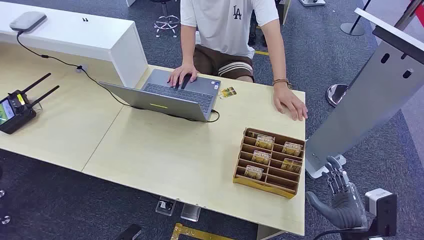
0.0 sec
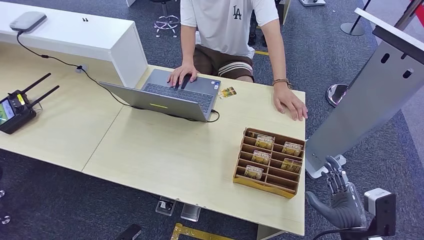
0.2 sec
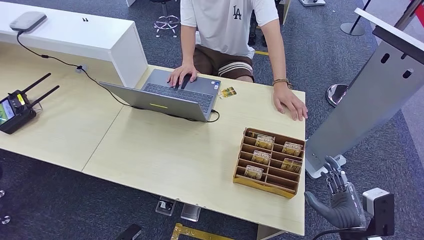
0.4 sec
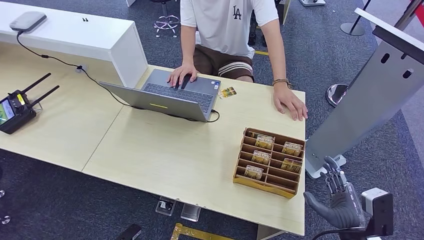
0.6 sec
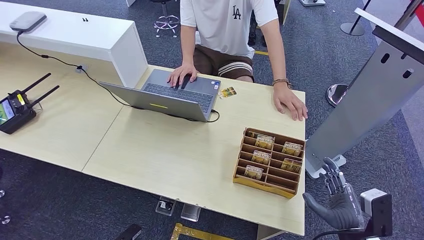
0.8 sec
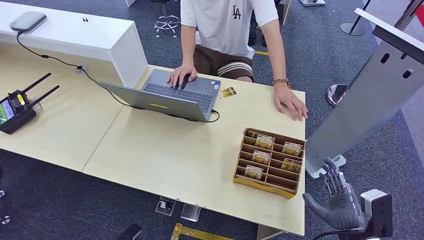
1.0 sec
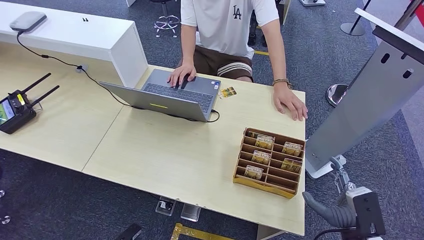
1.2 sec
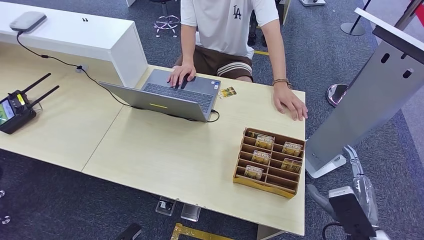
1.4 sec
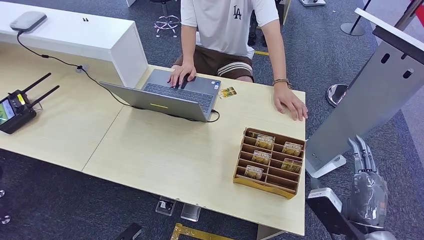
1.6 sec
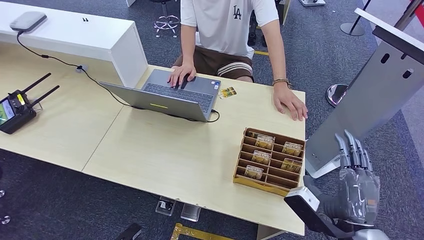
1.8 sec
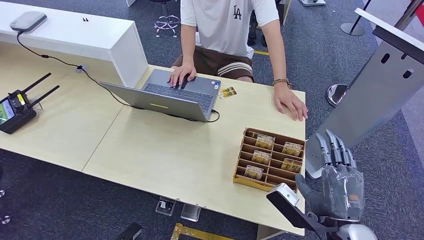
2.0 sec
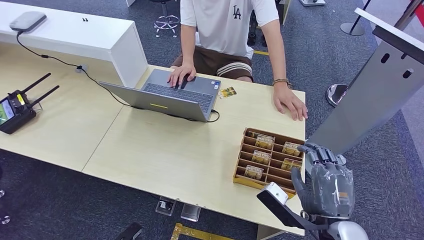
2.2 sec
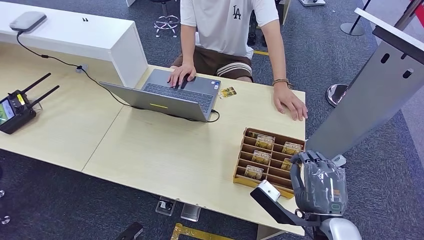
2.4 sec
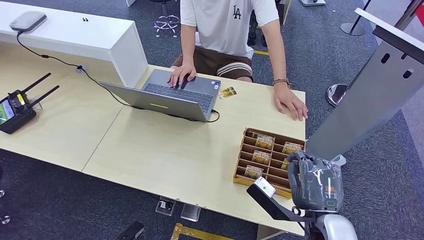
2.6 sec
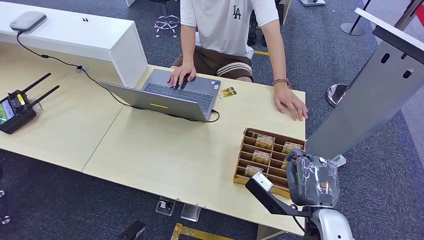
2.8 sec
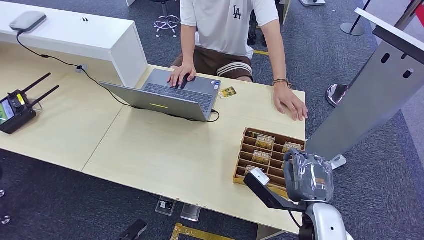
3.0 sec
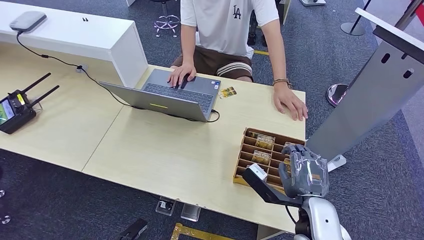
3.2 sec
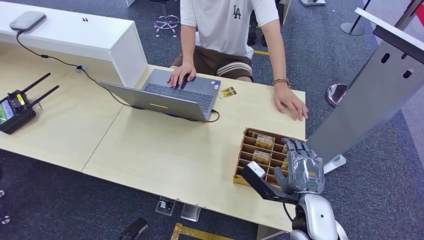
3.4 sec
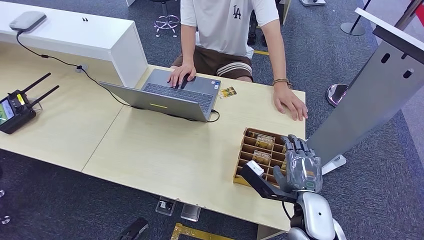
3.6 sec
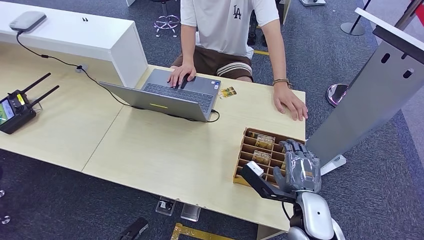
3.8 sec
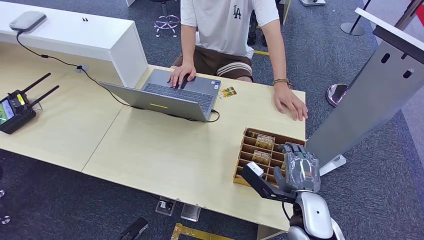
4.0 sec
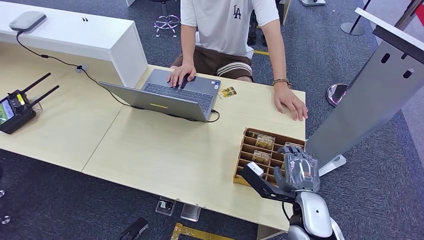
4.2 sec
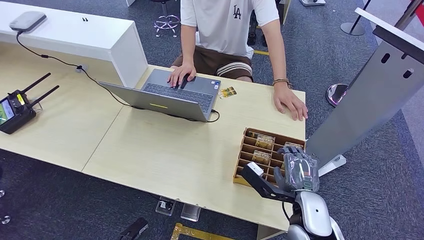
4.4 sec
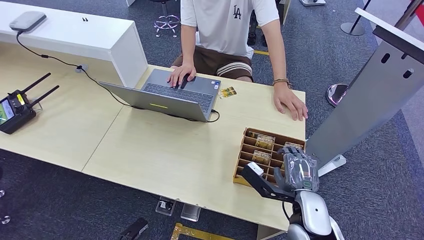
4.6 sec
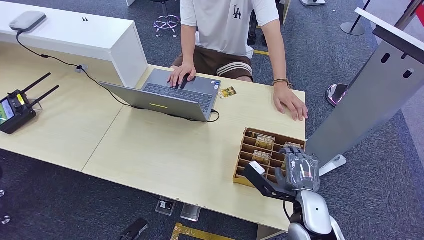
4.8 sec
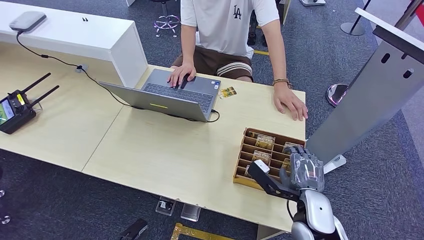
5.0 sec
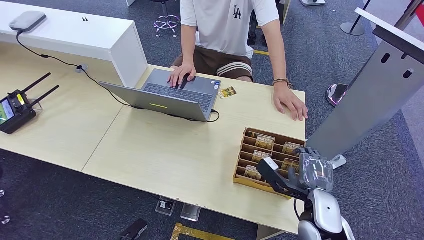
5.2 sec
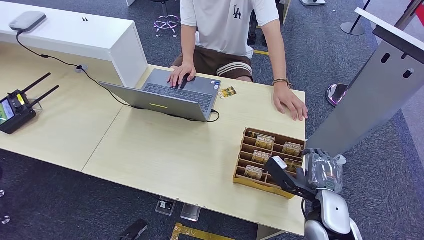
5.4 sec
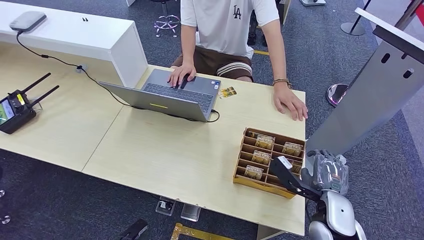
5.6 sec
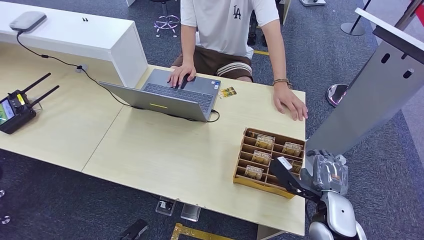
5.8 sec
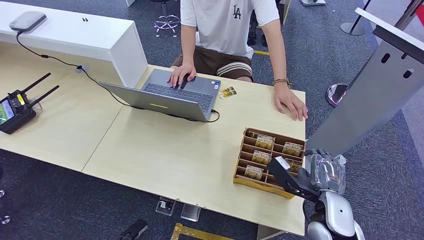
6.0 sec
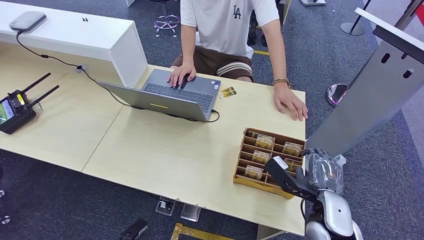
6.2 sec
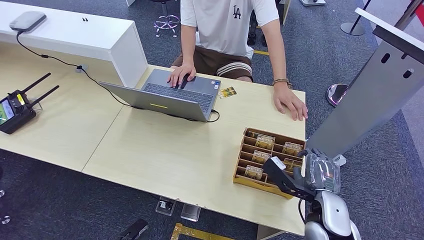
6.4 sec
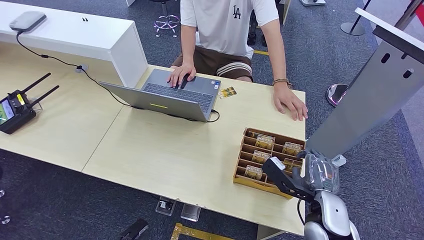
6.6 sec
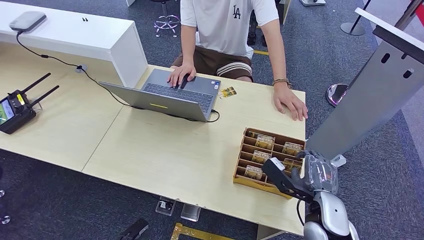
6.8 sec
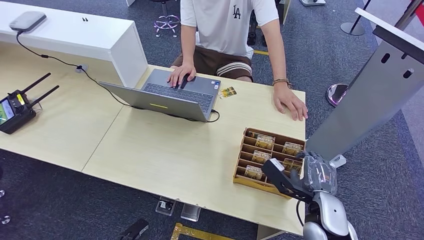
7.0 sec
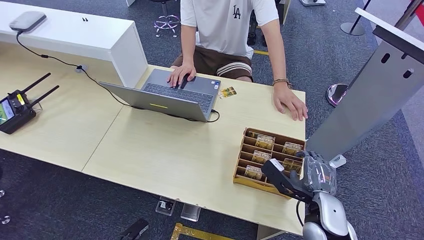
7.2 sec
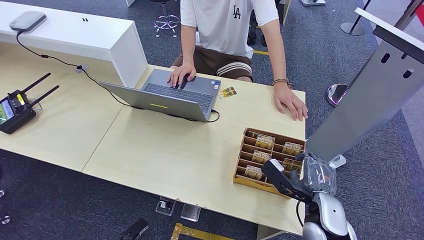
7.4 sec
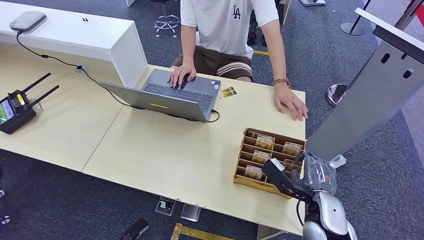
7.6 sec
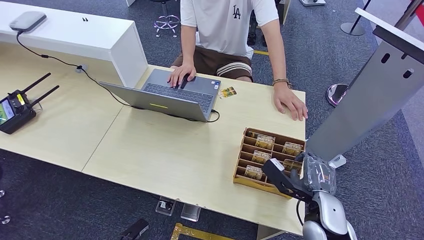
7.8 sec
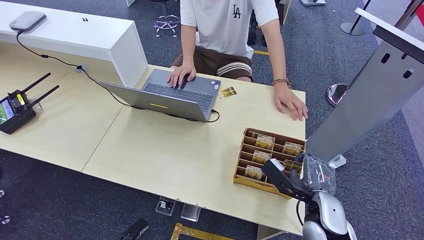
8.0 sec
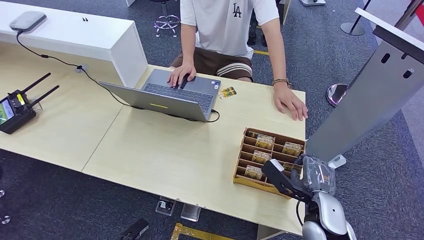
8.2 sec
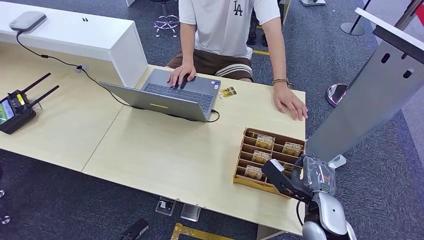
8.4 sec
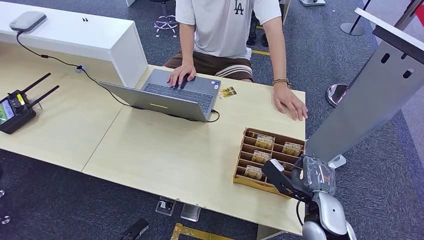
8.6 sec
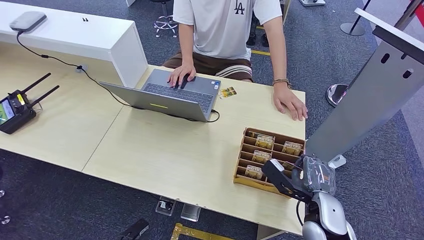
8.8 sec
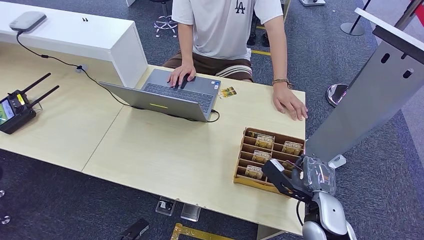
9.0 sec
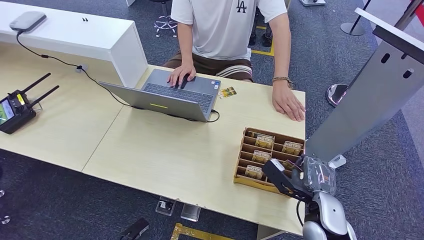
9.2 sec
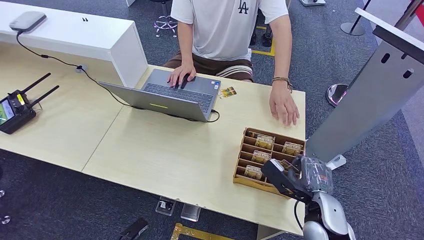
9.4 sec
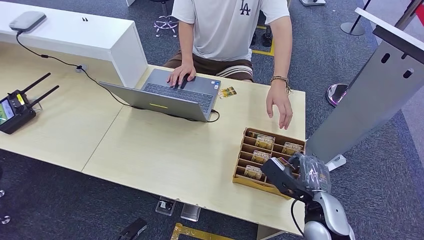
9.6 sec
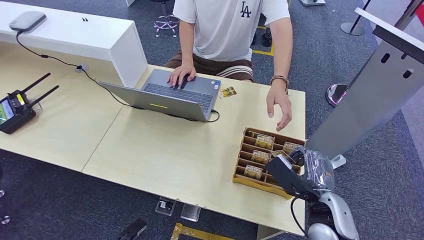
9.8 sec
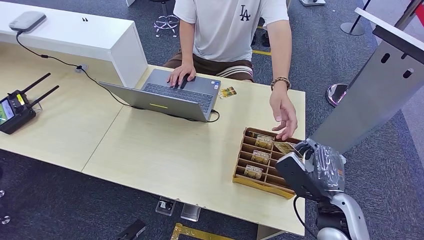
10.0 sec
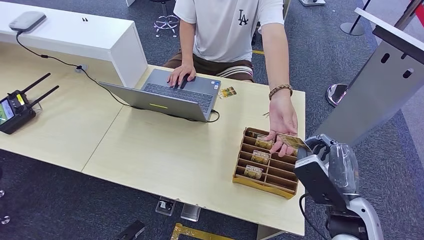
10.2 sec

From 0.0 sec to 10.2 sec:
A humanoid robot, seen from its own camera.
Step, from 0.0 sec to 9.0 sec: Pick up the key card from the card box.
From 1.4 sec to 3.0 sec: The right hand heads to the left, covering approximately 10 cm.
From 3.0 sec to 4.4 sec: The right hand changes place by some 5 cm.
From 4.4 sec to 5.8 sec: The right hand moves to the right, some 5 cm.
From 5.8 sec to 7.2 sec: The hands stay close to where they were, moving slightly.
From 7.2 sec to 8.8 sec: The two hands keep their place.
From 8.8 sec to 10.2 sec: The right hand heads upward, covering roughly 10 cm.

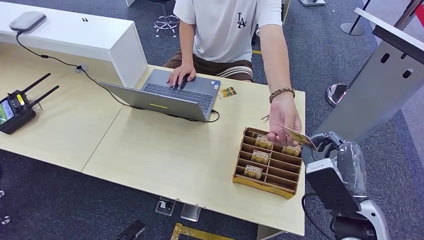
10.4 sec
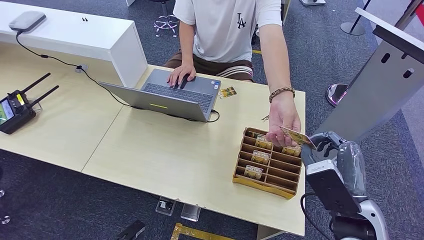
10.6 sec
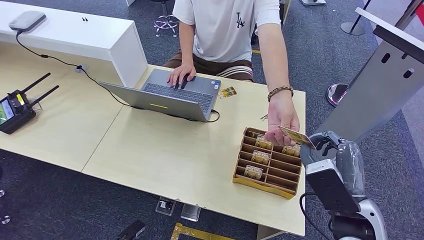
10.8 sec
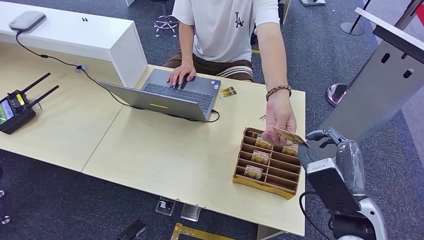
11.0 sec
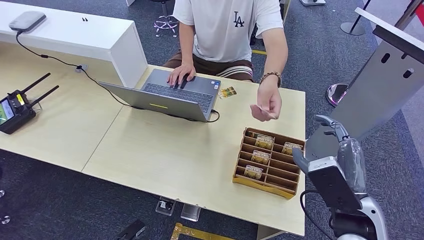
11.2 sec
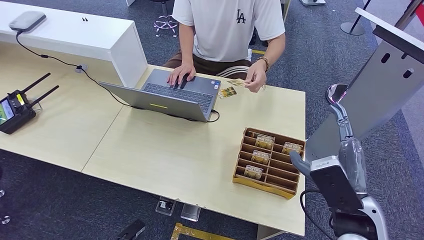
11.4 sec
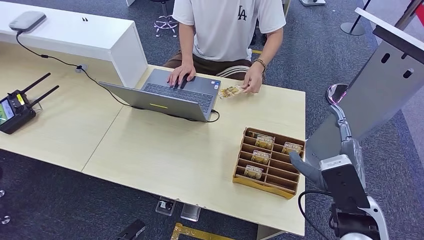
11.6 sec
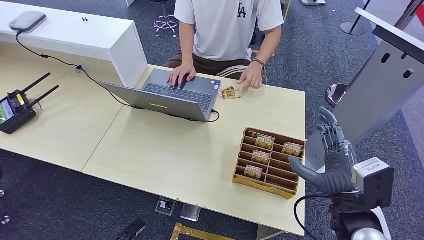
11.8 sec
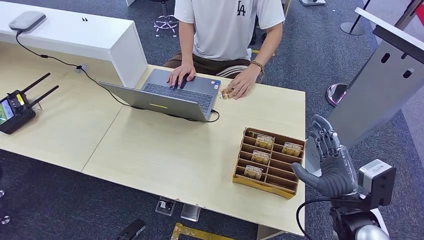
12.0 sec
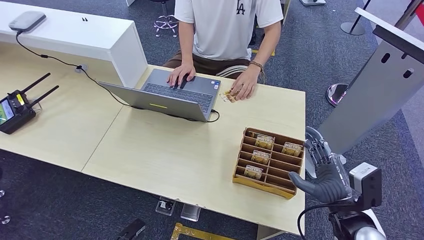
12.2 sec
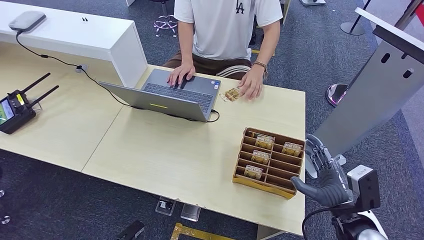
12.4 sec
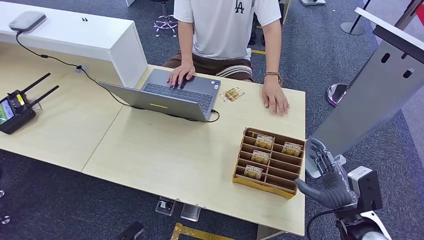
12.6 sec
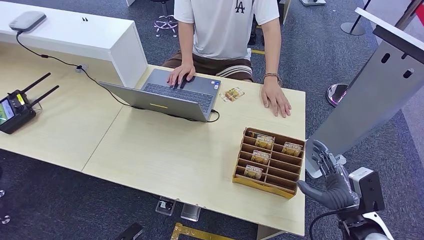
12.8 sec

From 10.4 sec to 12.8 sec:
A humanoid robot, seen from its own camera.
Step, from 10.4 sec to 12.8 sec: Hand the key card to the target.
From 10.4 sec to 11.6 sec: The hands stay close to where they were, moving slightly.
From 11.6 sec to 12.8 sec: The right hand is displaced downward and to the right by some 10 cm.

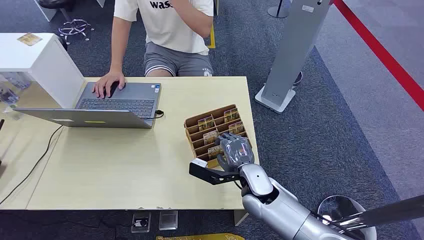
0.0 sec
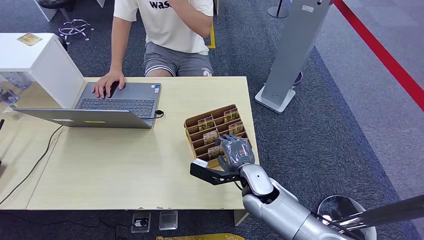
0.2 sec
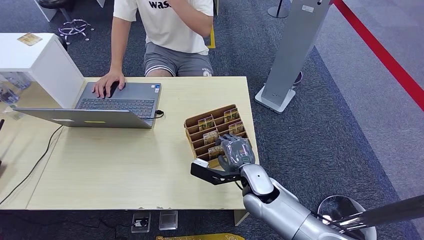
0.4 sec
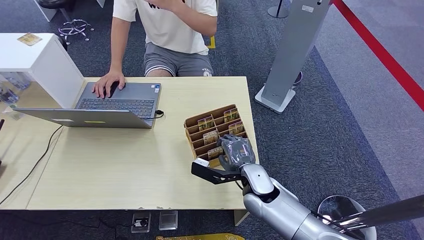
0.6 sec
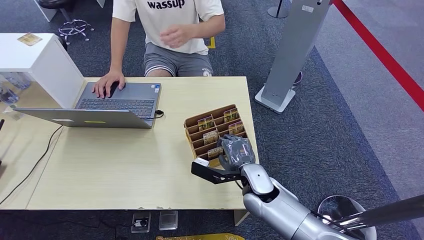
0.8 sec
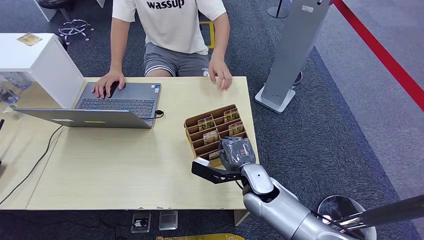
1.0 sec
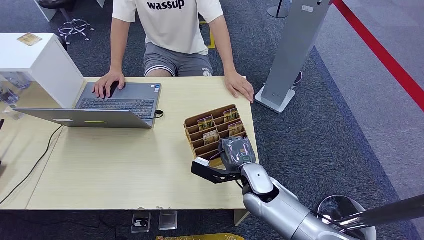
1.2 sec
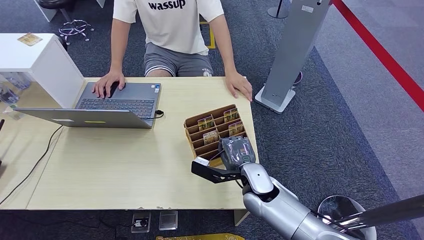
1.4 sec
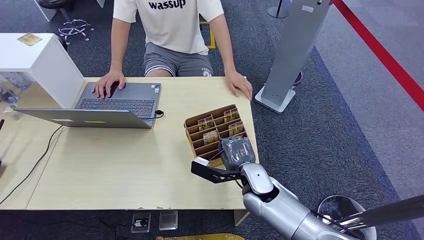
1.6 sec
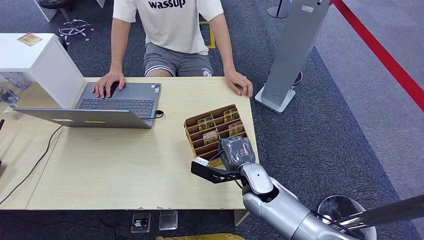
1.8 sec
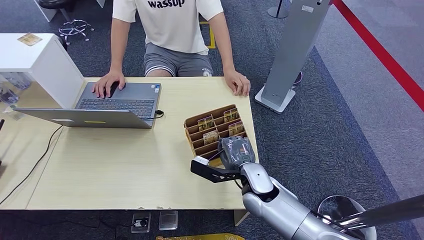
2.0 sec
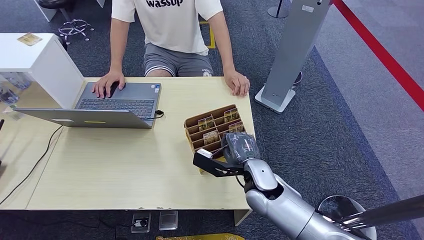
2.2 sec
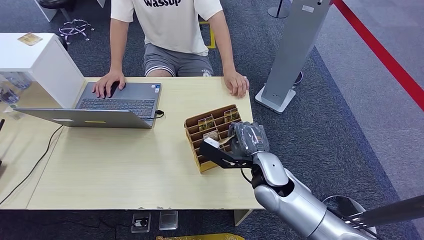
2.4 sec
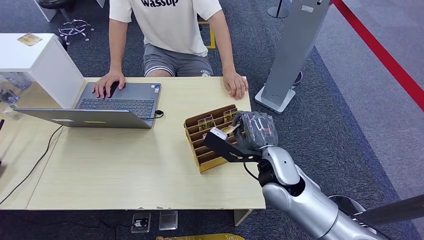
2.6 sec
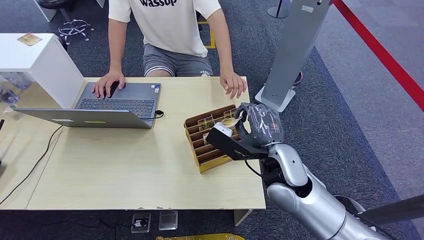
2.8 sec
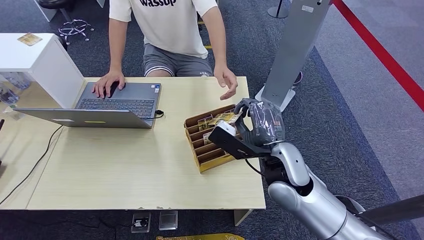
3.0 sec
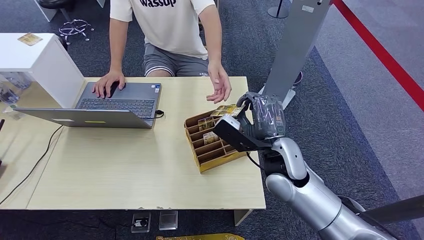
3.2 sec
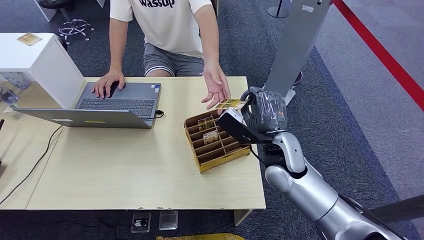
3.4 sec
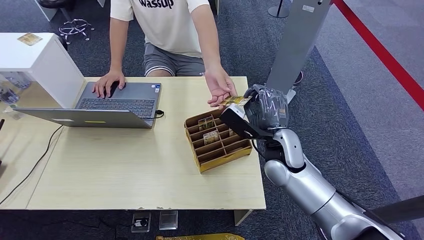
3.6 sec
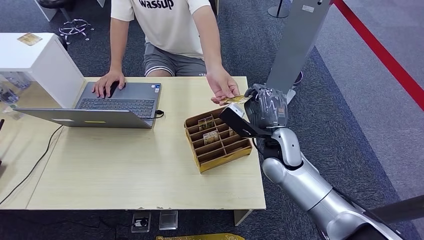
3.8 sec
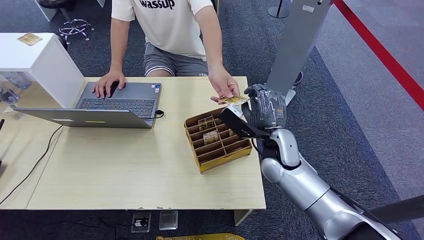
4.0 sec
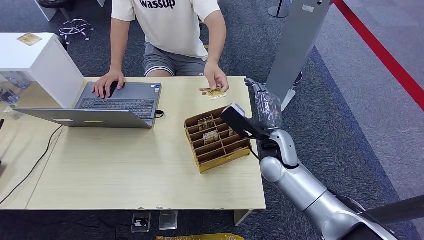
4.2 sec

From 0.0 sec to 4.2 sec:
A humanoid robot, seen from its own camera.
Step, from 0.0 sec to 2.4 sec: Pick up the key card from the card box.
Step, from 3.2 sec to 4.2 sec: Hand the key card to the target.
From 1.4 sec to 2.8 sec: The right hand heads upward, covering about 10 cm.
From 2.8 sec to 4.2 sec: The right hand travels forward by roughly 5 cm.
